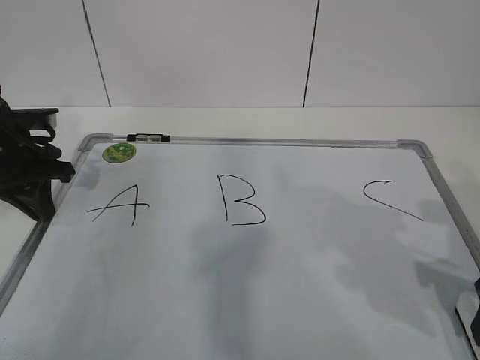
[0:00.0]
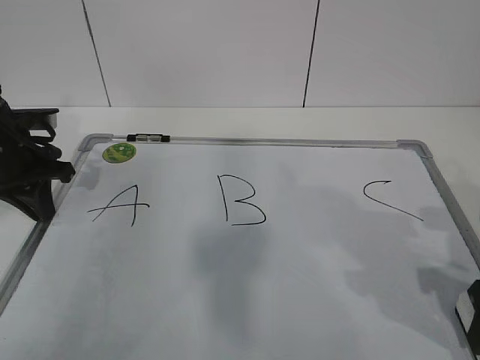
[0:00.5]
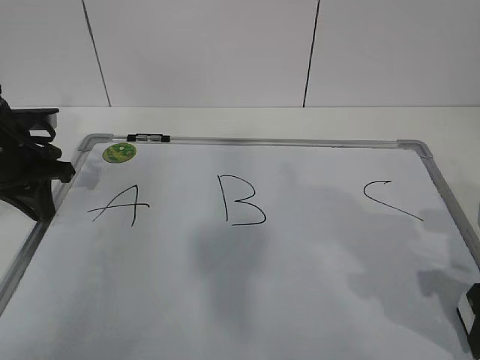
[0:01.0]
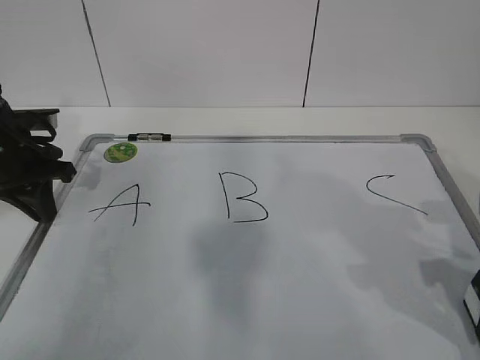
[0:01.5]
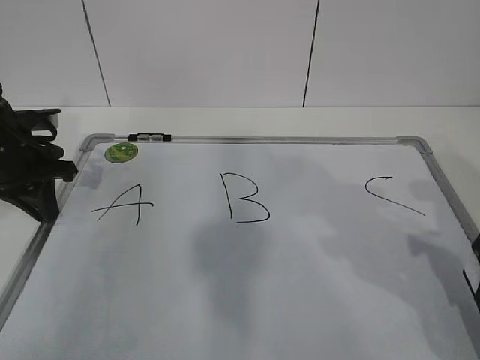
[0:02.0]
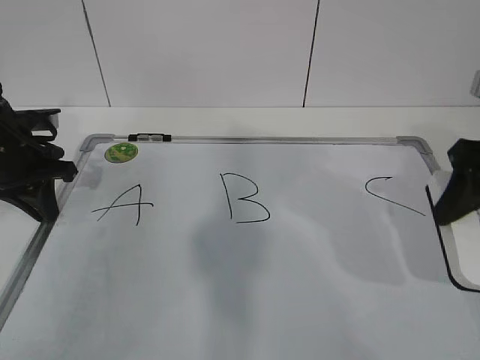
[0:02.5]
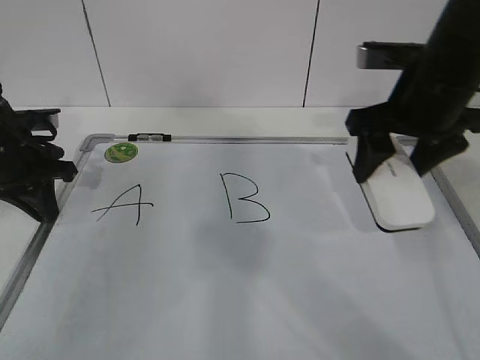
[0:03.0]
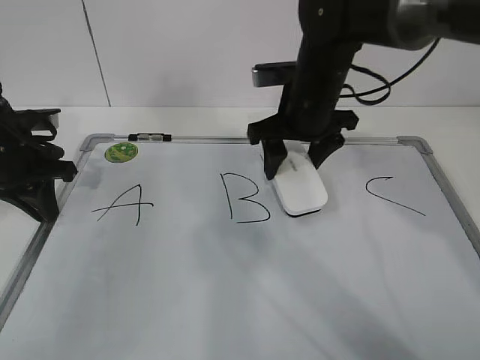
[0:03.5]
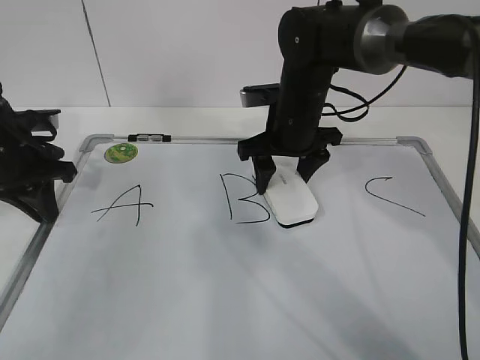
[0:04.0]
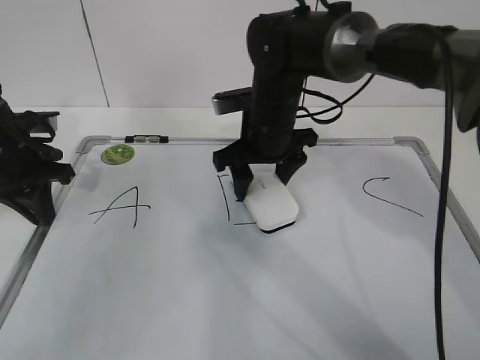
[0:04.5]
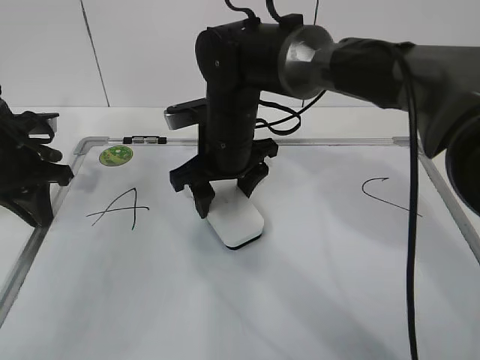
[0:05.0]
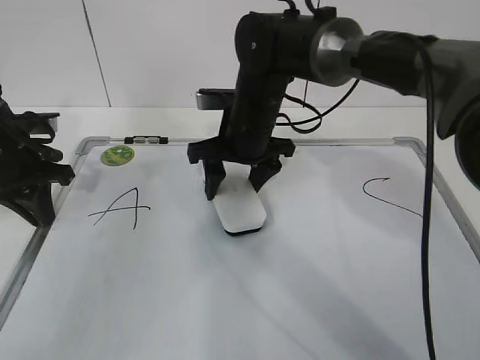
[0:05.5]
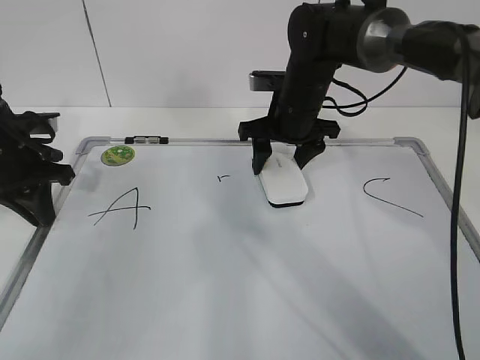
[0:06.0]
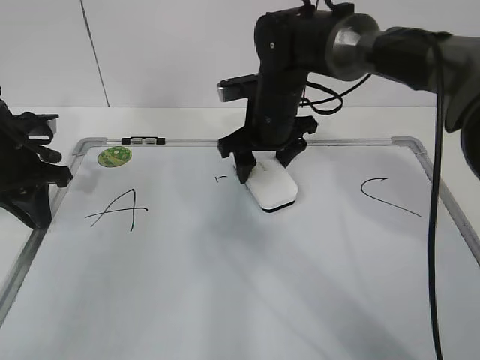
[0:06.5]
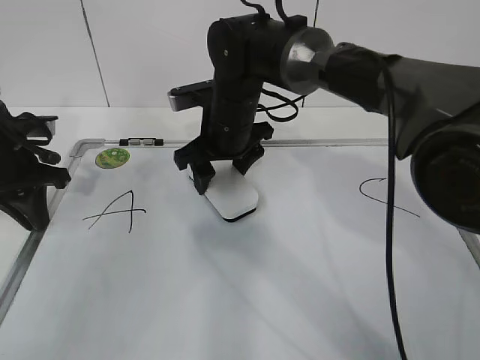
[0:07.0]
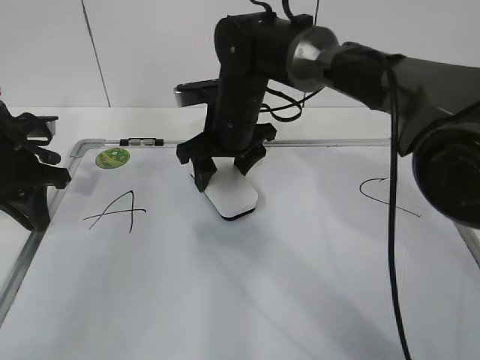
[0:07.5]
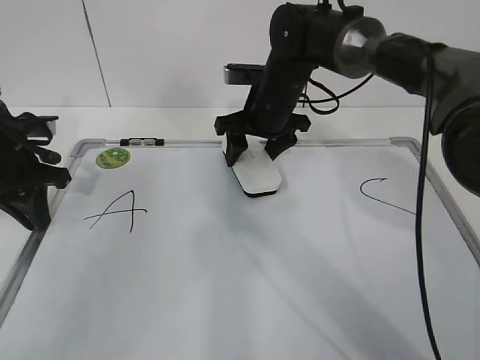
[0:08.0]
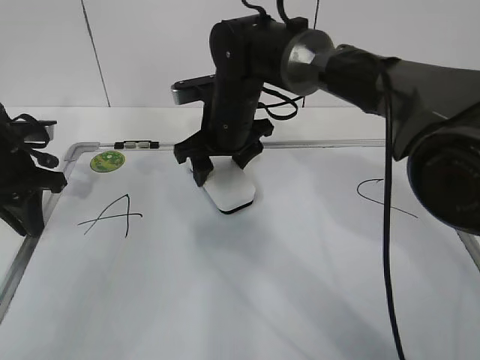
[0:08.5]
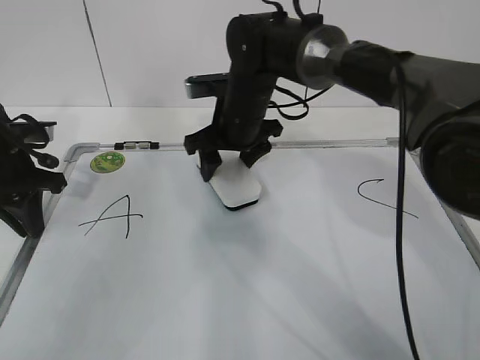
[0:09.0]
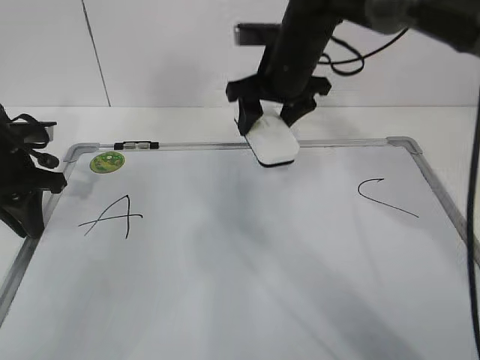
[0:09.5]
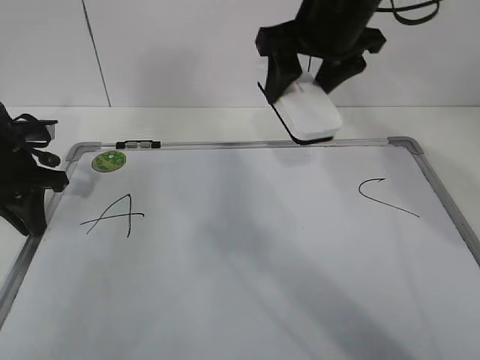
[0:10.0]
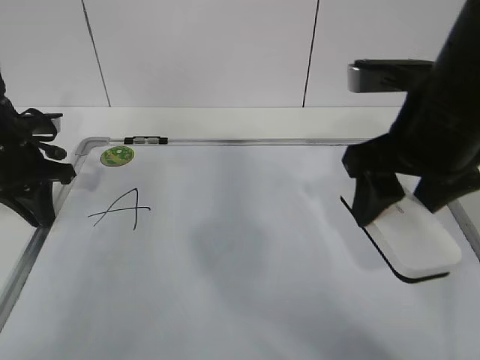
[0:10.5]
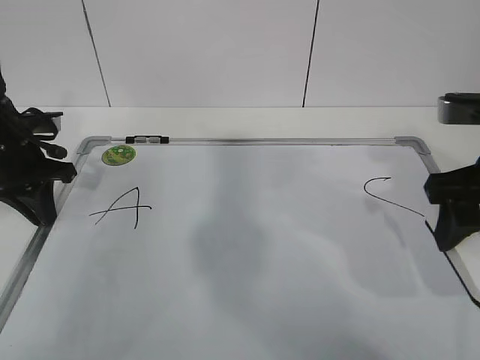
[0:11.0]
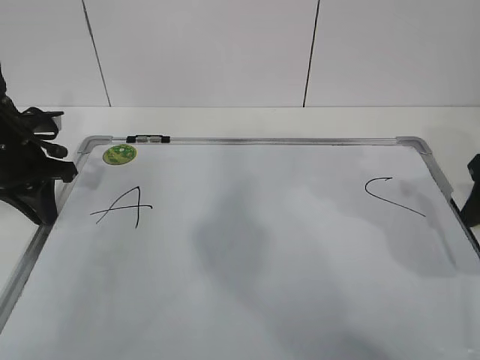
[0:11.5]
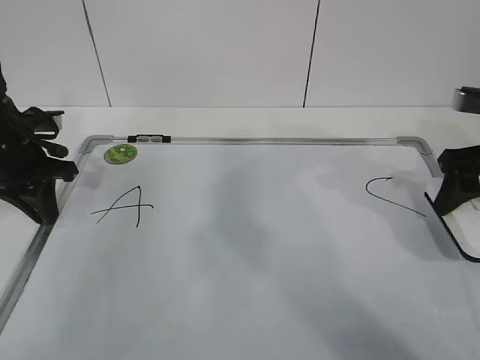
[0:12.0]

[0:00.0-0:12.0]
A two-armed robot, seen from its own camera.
Task of the whole recording: pick up the eraser on the blackboard and erase the letter "B".
Step, 0:00.0 to 0:06.5: Erase the letter B with your right hand.
Step, 0:07.0 to 0:10.0: Put down the eraser with your right hand.
0:00.0 to 0:02.0: There are only small adjustments of the grippers.
0:02.0 to 0:04.0: The right gripper moves forward and to the left, some 30 cm.
0:04.0 to 0:06.0: The right gripper reaches approximately 10 cm to the left, then returns.
0:06.0 to 0:08.0: The right gripper travels to the left and back again, about 10 cm each way.
0:08.0 to 0:10.0: The right gripper travels upward and backward by approximately 20 cm.
0:10.0 to 0:12.0: The right gripper goes roughly 20 cm to the right and downward.

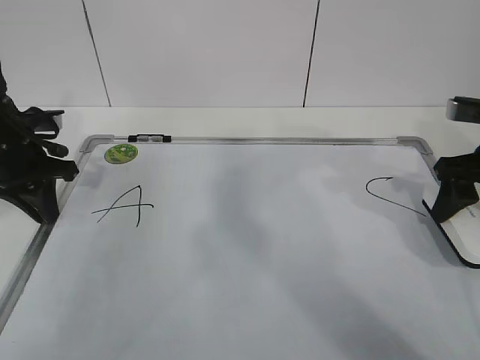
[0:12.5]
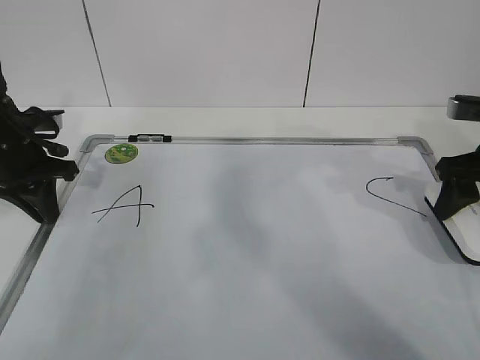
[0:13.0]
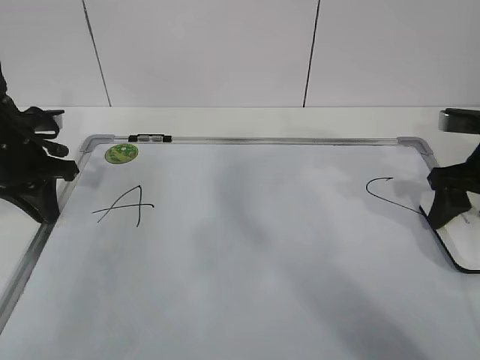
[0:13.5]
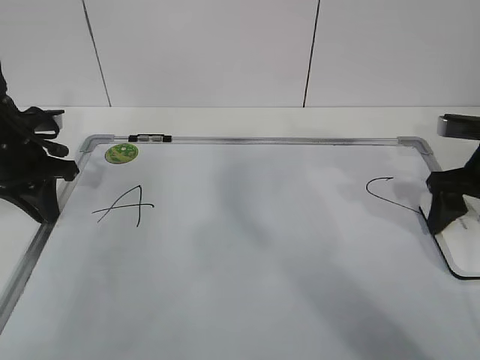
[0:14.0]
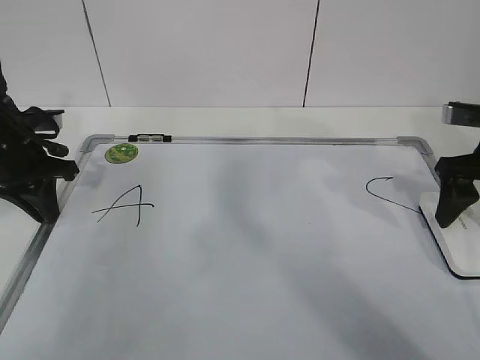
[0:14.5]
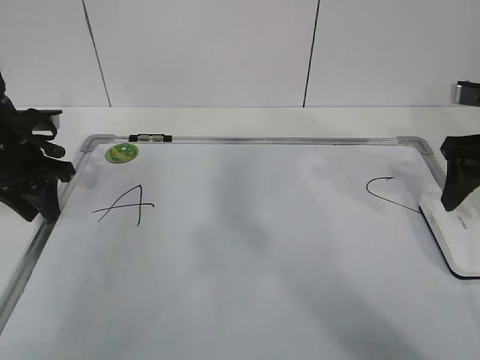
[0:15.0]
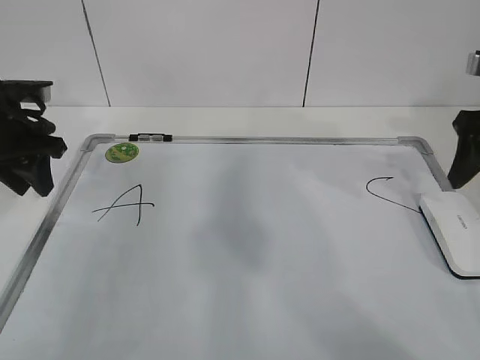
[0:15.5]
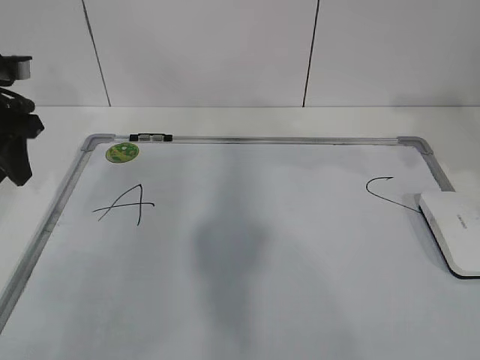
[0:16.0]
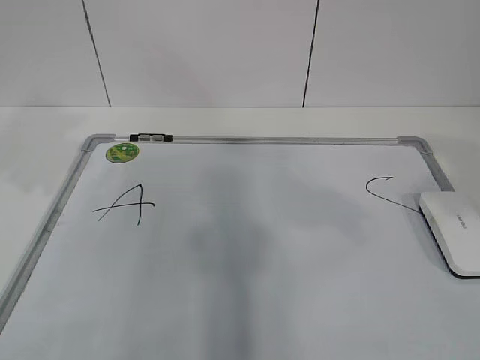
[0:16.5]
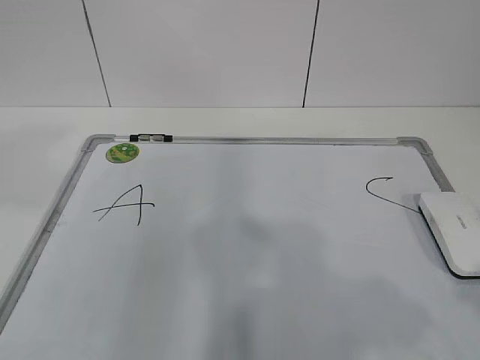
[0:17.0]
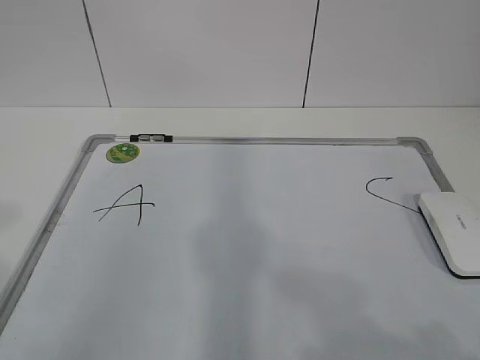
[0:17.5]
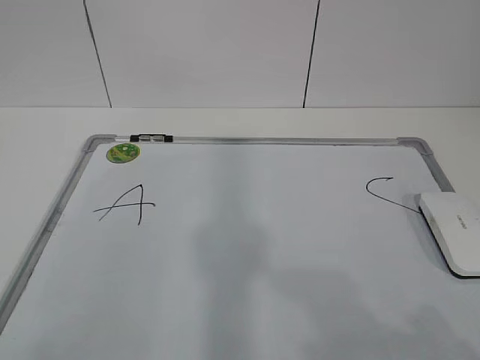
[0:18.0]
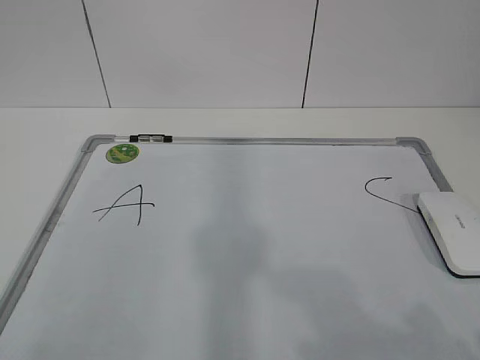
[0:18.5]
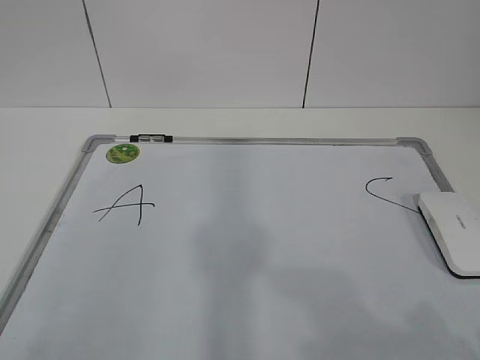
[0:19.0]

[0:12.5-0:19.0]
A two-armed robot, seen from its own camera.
Task of the whole recording: pick up the eraser on the blackboard and erase the letter "B".
0:12.5 to 0:14.5: There are only small adjustments of the grippers.
0:14.5 to 0:17.0: The left gripper goes approximately 30 cm upward and backward, and opens its fingers. Meanwhile the right gripper moves backward, some 30 cm.

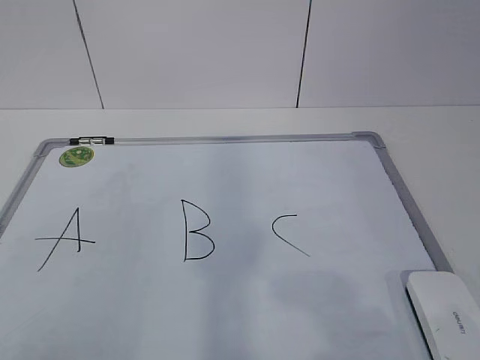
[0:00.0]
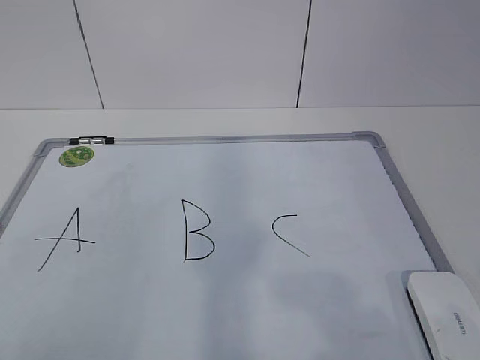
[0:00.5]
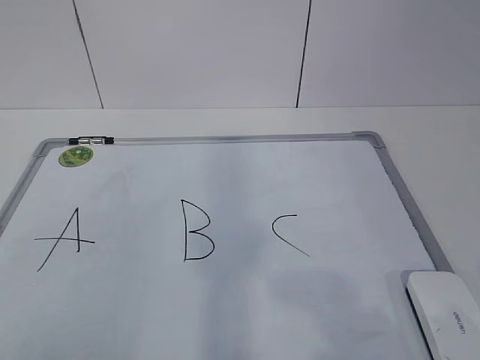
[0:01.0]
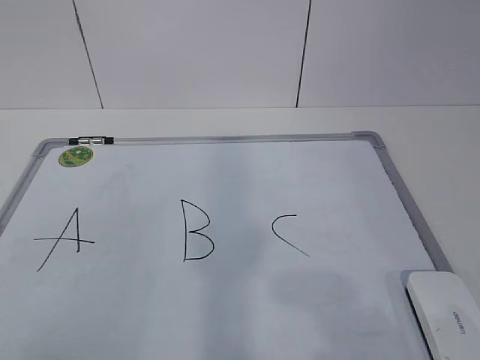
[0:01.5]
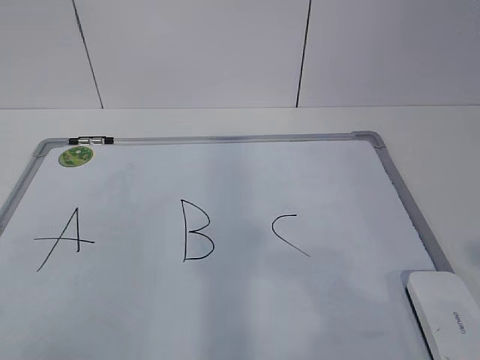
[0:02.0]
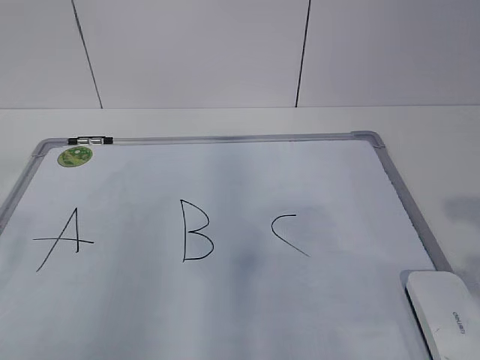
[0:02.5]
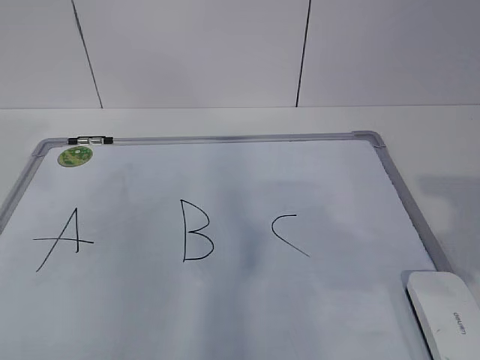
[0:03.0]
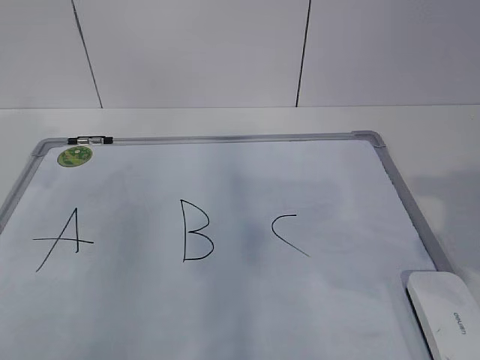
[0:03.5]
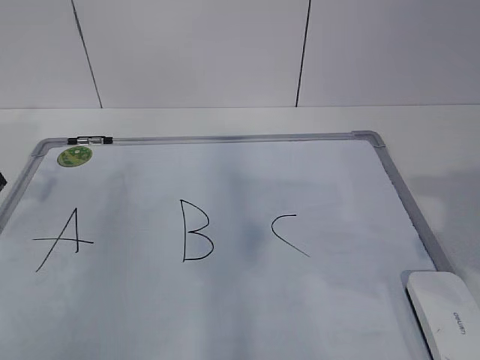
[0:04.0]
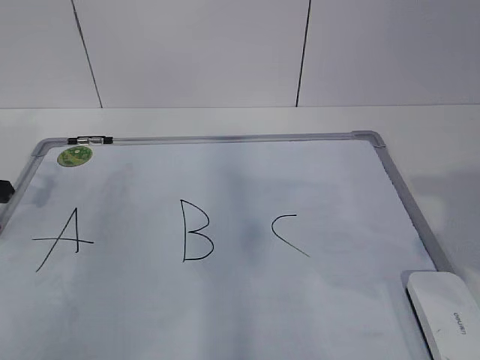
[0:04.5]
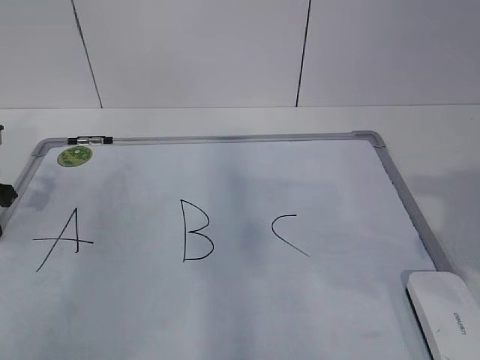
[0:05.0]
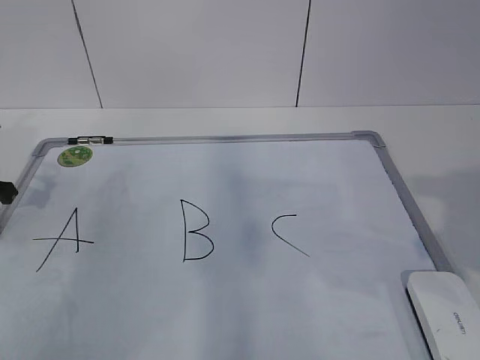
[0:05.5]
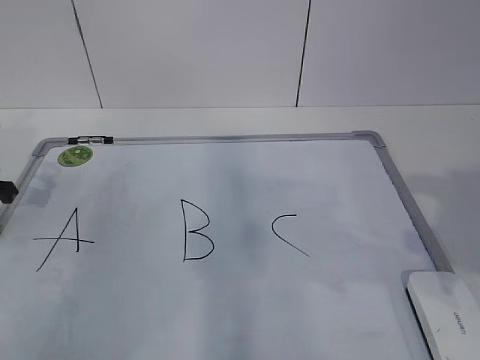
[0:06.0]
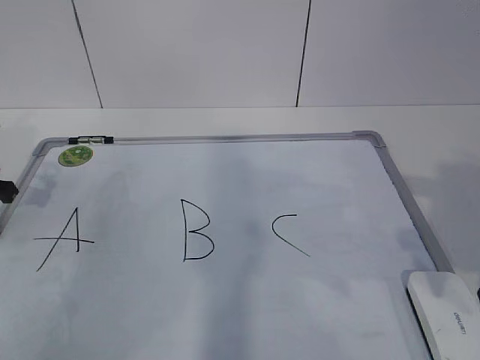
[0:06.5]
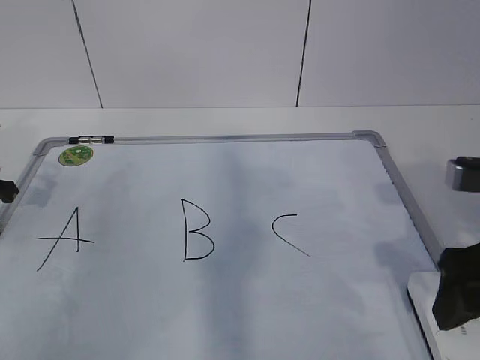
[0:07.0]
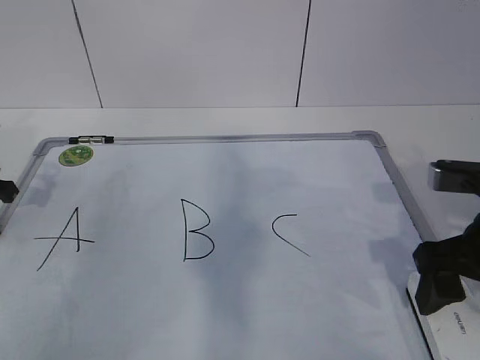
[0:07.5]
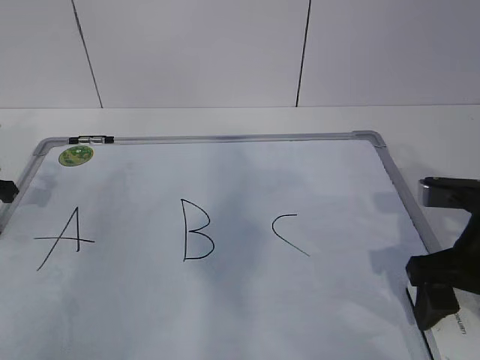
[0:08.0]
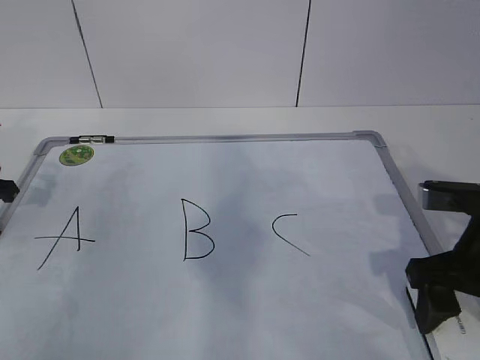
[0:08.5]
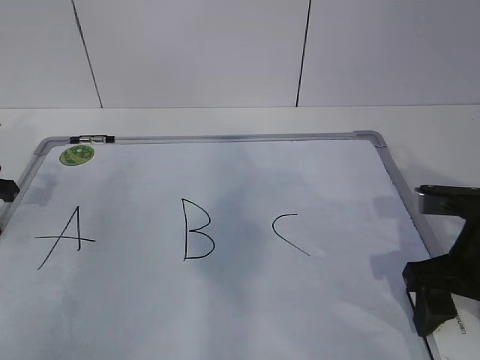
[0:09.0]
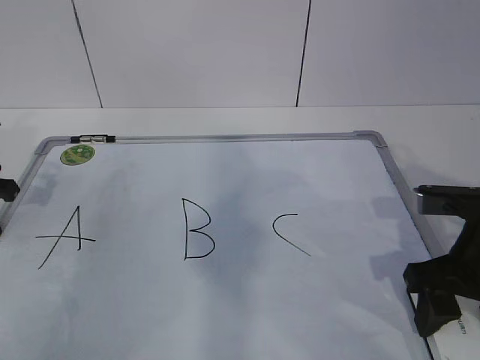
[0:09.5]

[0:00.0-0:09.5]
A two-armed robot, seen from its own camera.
Task of the whole recording: pick up the eraser on the blackboard and erase the letter "B".
Step, 0:05.0 to 0:08.0: Grab the eraser with your right hand.
0:02.0 to 0:04.0: The left gripper goes some 35 cm forward.
0:05.5 to 0:07.5: The right gripper travels downward and forward by about 10 cm, and opens up.
0:07.5 to 0:09.5: The grippers move only a little.
